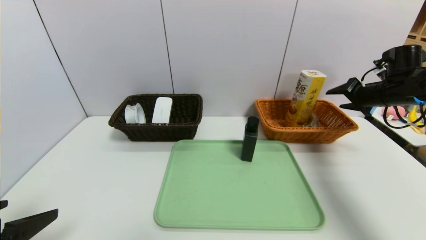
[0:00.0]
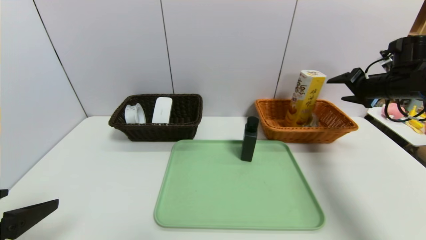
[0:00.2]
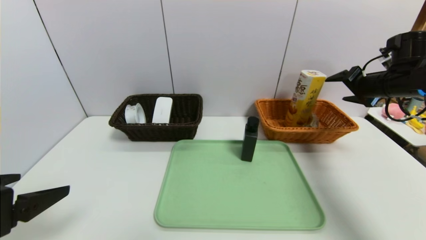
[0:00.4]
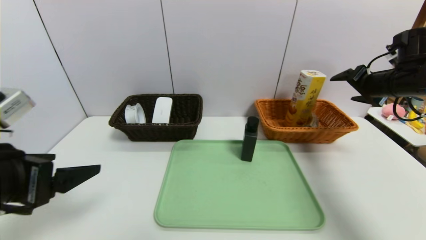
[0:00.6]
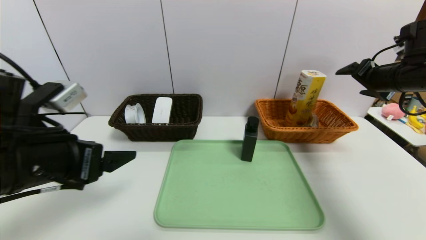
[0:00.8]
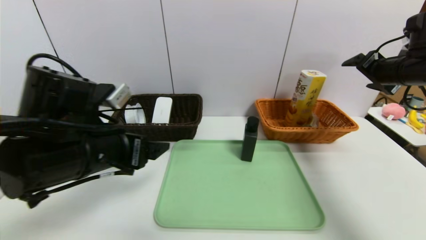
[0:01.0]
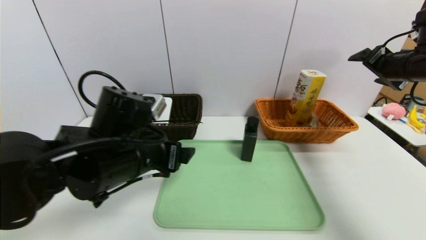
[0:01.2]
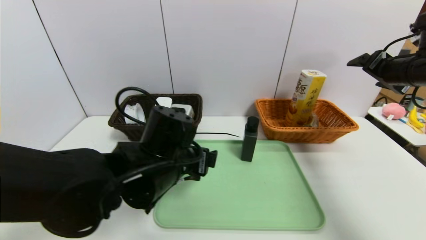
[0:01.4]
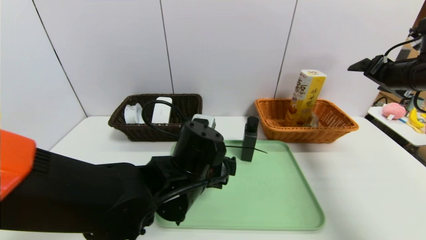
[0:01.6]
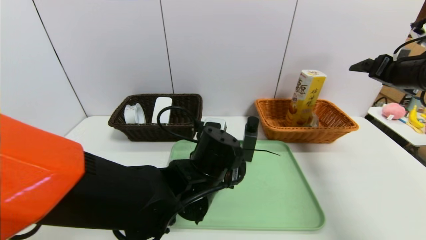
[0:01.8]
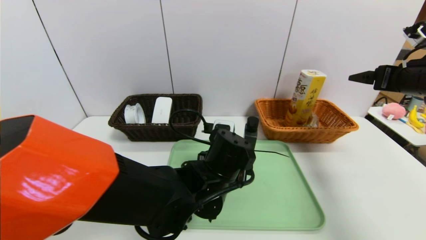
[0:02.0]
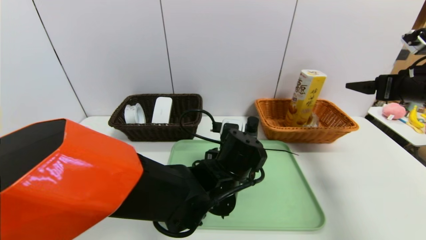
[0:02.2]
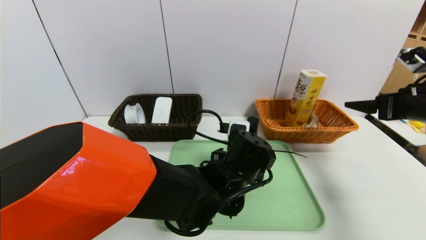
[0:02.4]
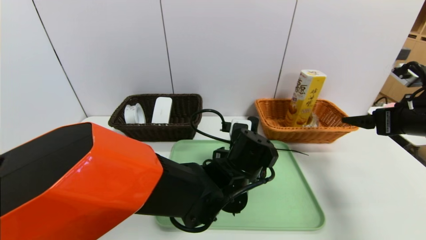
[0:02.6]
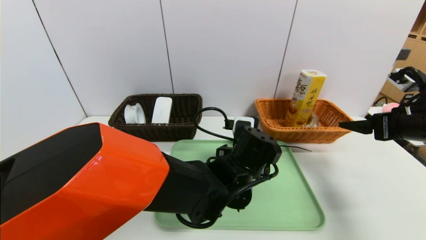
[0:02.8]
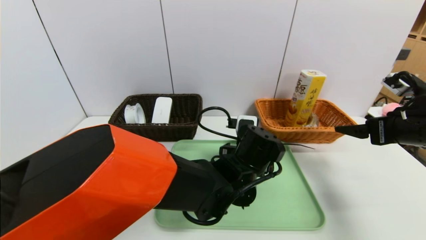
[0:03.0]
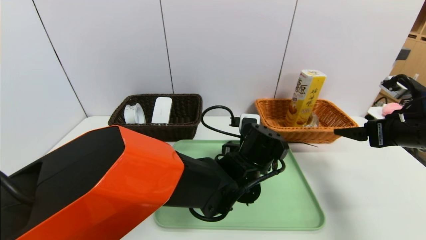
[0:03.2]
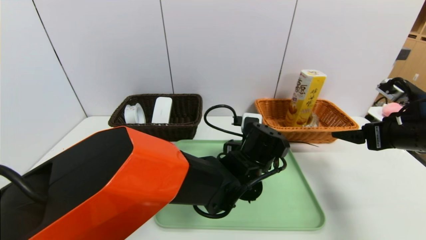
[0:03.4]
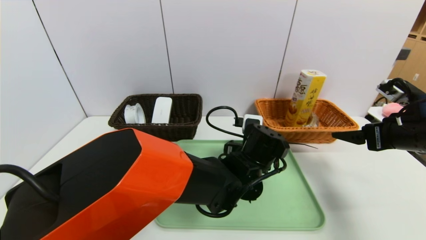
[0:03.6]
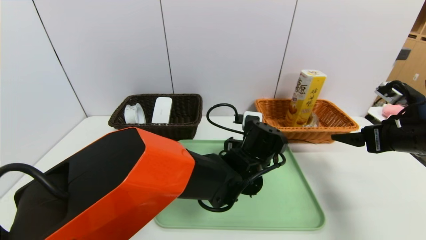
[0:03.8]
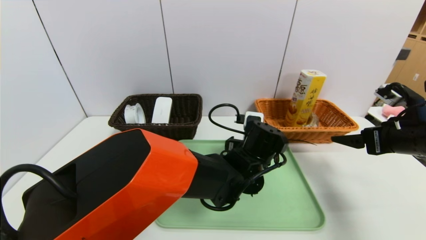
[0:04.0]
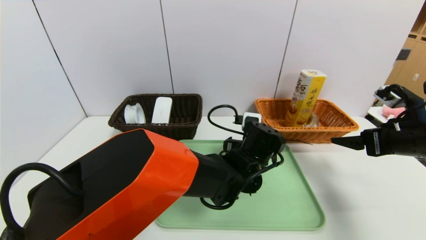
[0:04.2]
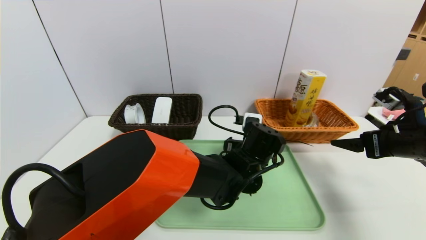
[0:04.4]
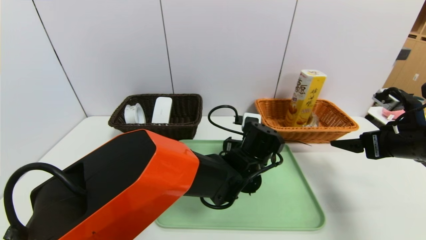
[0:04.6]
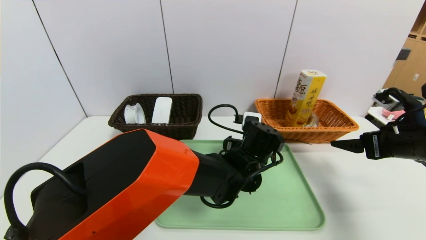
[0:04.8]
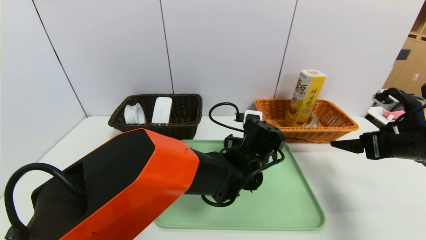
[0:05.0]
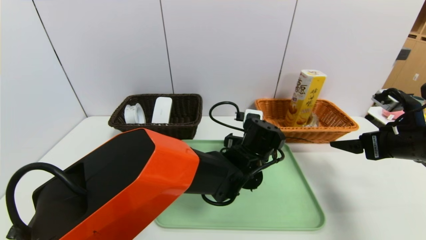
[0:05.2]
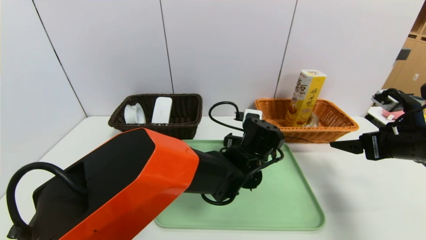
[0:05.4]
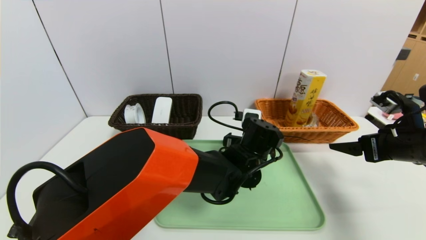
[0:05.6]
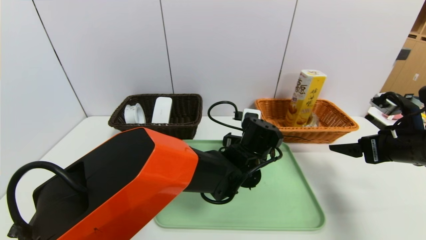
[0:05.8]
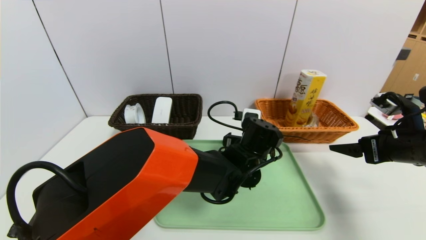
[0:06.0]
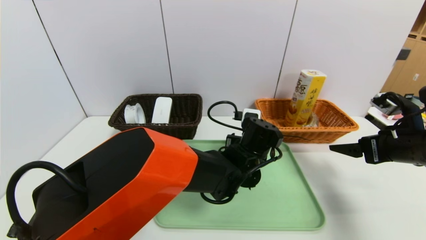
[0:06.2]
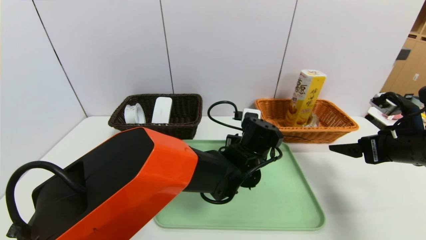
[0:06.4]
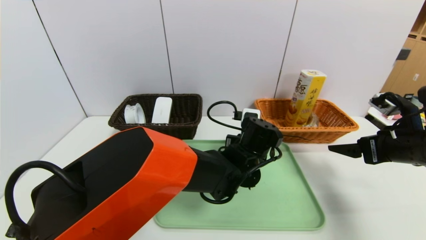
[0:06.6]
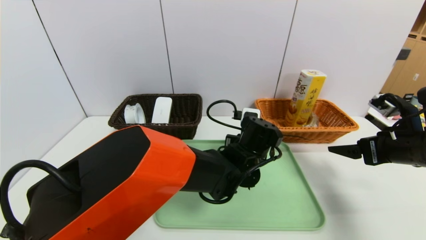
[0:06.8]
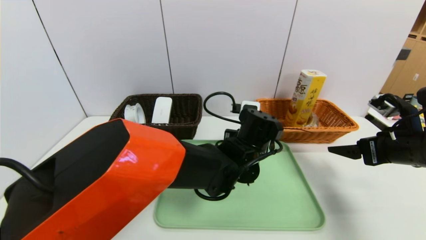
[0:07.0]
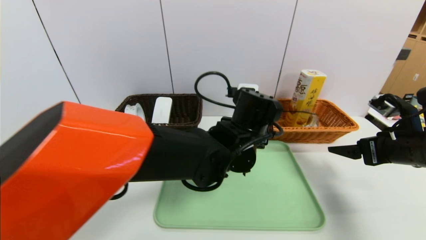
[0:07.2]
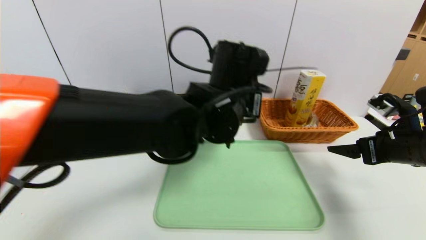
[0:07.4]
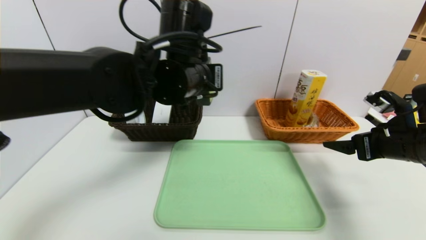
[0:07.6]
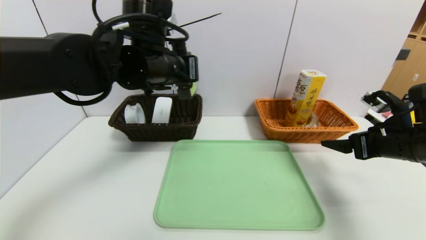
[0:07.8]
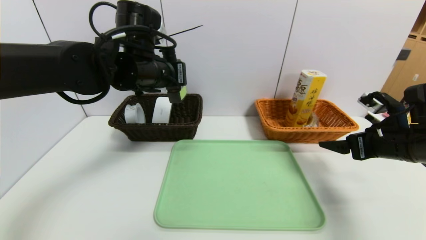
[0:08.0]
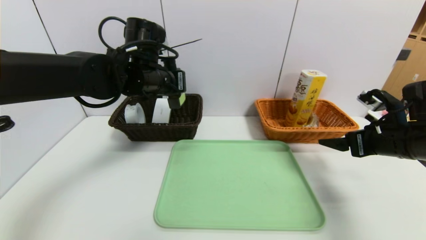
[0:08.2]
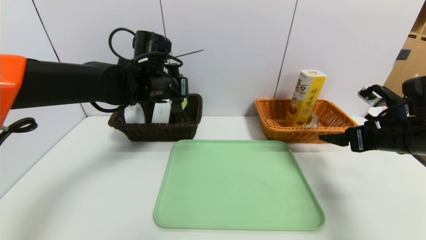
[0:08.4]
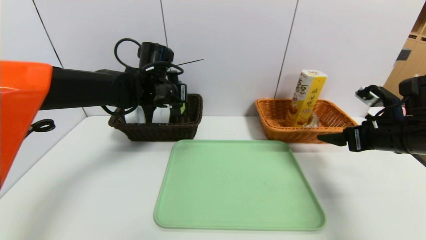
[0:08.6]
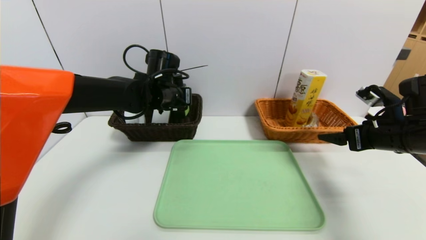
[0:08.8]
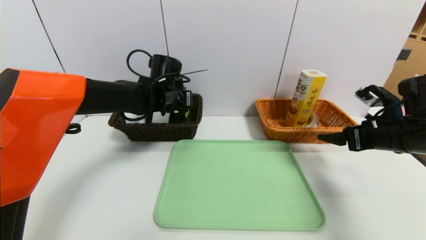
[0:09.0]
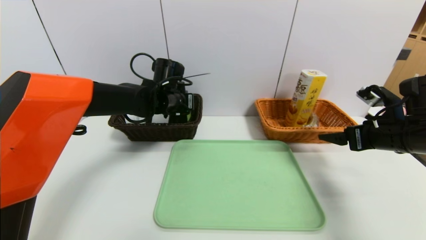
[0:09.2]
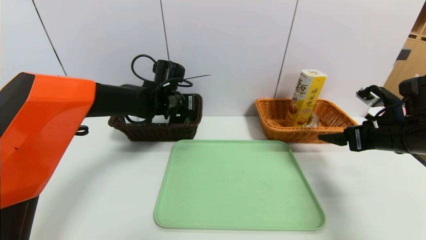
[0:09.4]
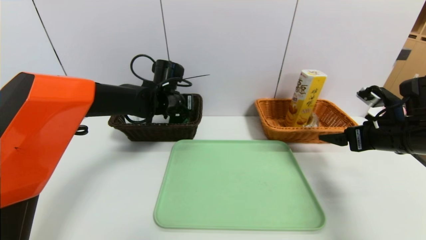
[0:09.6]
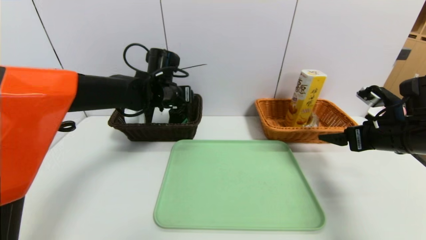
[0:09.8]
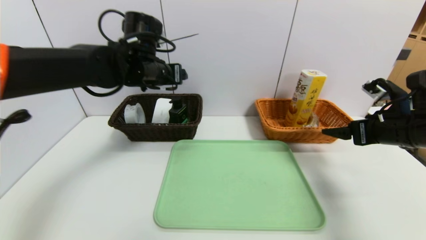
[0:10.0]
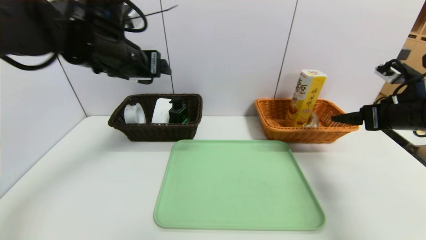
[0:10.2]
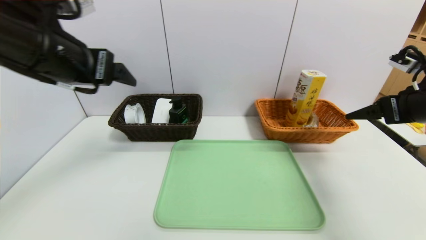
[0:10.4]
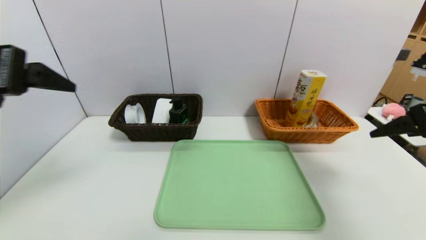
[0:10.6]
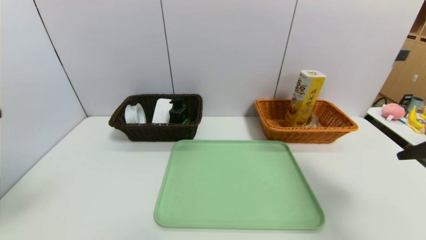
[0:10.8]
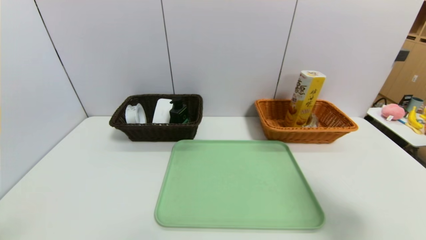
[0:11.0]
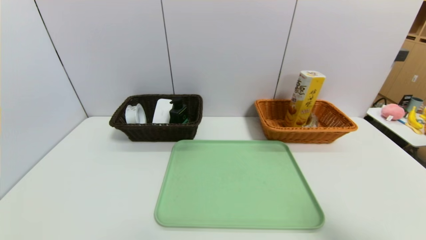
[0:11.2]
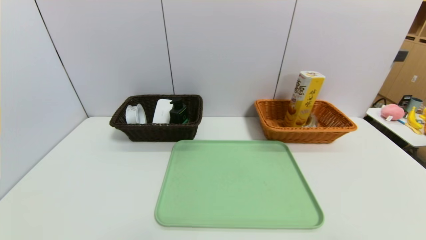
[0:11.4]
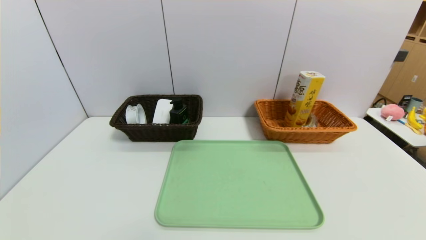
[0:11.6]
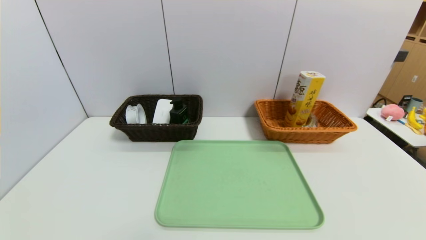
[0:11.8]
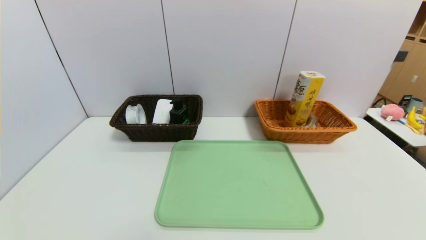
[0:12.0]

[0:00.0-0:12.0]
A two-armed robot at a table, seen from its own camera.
Task of the whole recording: place the food in the right basket with the right gripper, and place the non food items in the left basket with the left gripper.
Step, 0:00.4 to 0:10.0: Grasp the hard cleanser and put it in the left basket.
0:00.0 to 0:01.6: The right gripper is displaced backward and upward by roughly 10 cm. Meanwhile the left gripper goes about 30 cm to the right and forward.
0:01.6 to 0:03.0: The right gripper moves backward and downward, some 10 cm, while the left gripper moves to the right, some 10 cm.
0:03.0 to 0:04.4: There are only small adjustments of the grippers.
0:04.4 to 0:06.0: Neither gripper changes place.
0:06.0 to 0:07.6: The left gripper heads upward and to the left, covering roughly 25 cm, and closes up.
0:07.6 to 0:09.0: The left gripper is displaced forward, downward and to the left by roughly 15 cm.
0:09.0 to 0:10.4: The right gripper heads upward, covering roughly 10 cm. The left gripper heads backward, upward and to the left, covering approximately 25 cm, and opens its fingers.
0:10.4 to 0:12.0: The left gripper goes approximately 35 cm backward and downward, while the right gripper goes approximately 30 cm backward.
